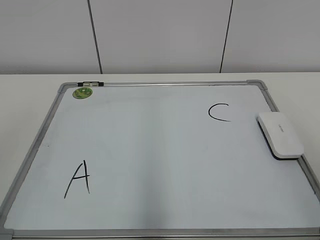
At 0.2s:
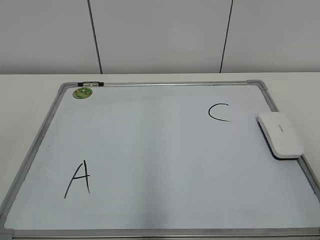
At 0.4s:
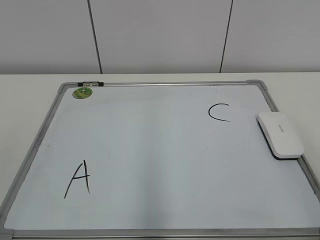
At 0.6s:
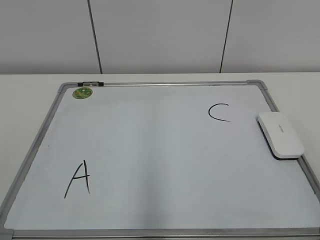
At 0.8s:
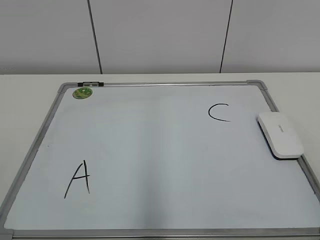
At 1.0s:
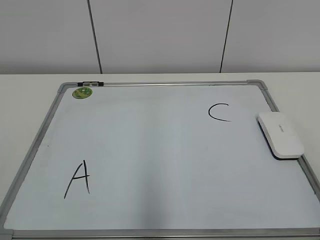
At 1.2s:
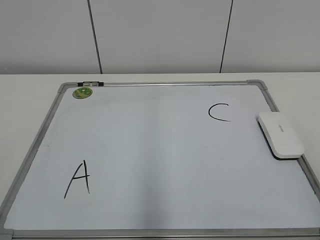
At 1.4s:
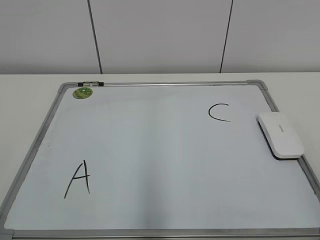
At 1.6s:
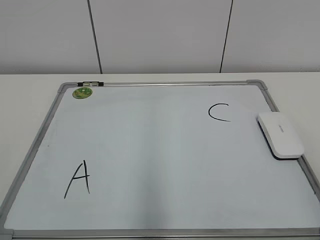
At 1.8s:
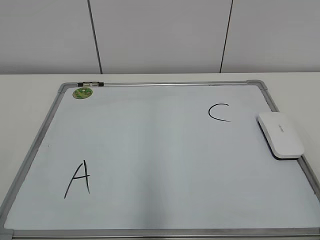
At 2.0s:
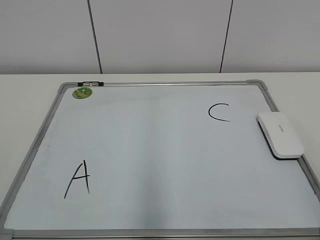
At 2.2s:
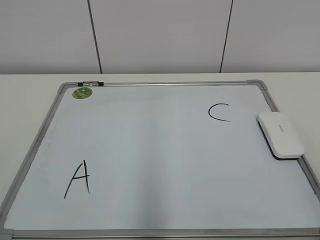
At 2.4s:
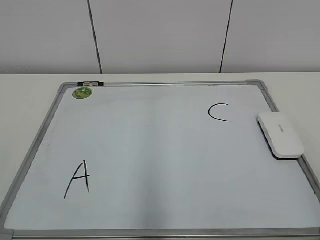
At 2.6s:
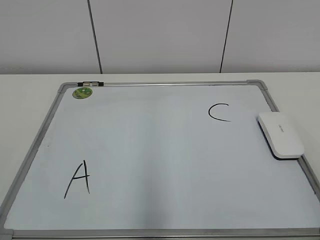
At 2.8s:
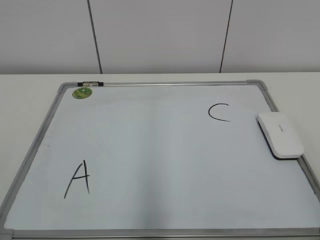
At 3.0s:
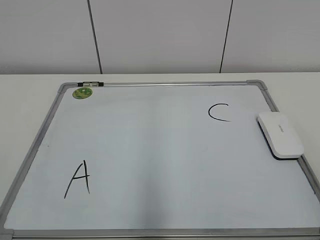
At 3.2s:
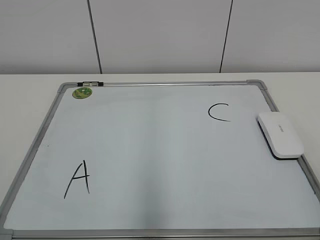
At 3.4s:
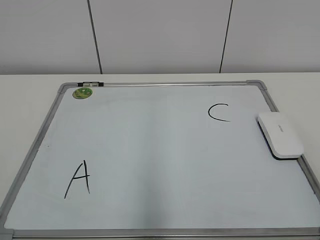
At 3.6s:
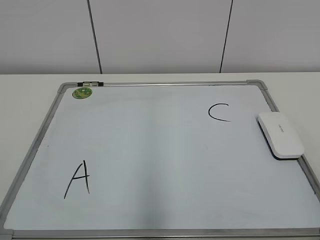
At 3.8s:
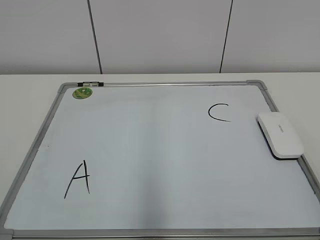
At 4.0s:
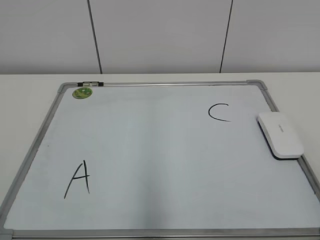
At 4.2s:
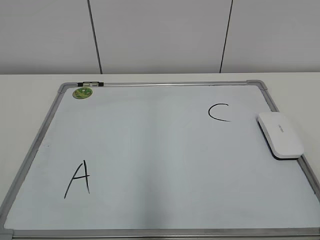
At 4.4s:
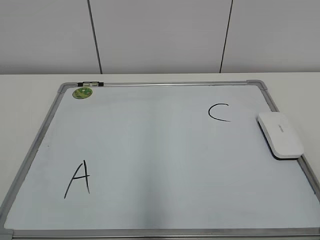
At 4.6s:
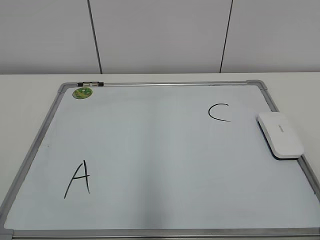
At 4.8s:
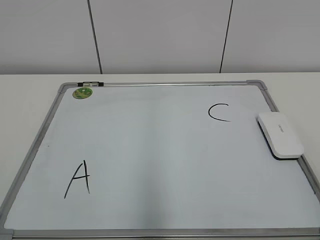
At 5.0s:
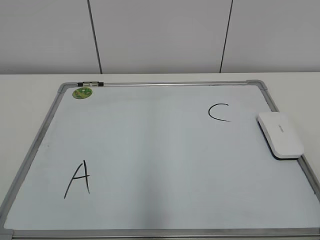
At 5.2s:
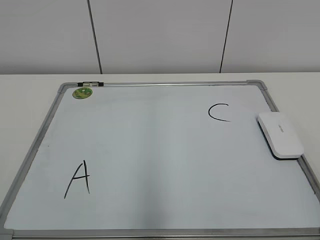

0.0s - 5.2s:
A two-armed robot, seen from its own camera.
Task of the whole recording: pick up the eraser on the blackboard and erase the letter "B".
3.4s - 5.2s: Neither gripper changes place.

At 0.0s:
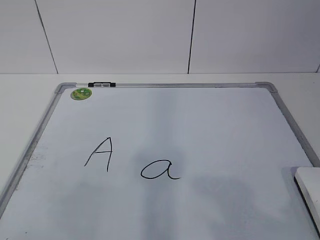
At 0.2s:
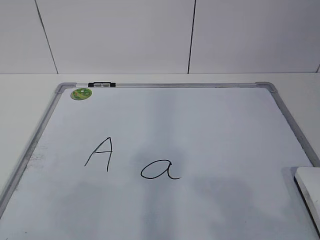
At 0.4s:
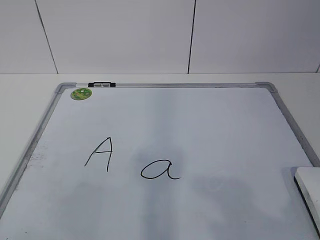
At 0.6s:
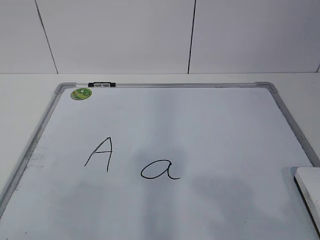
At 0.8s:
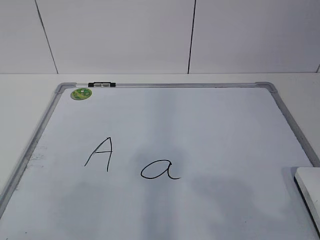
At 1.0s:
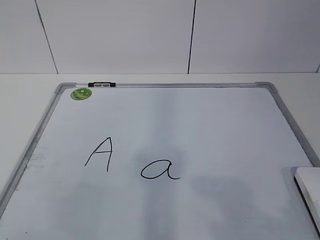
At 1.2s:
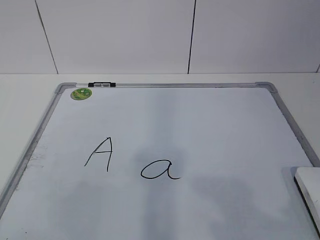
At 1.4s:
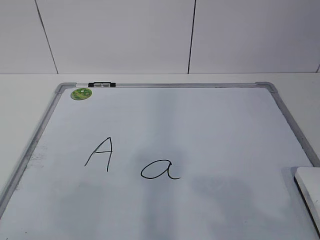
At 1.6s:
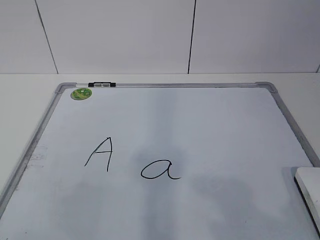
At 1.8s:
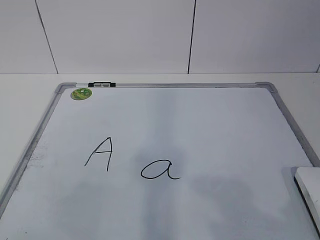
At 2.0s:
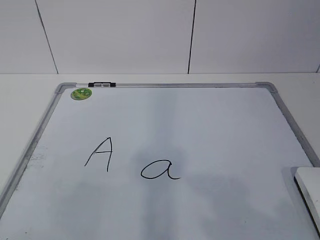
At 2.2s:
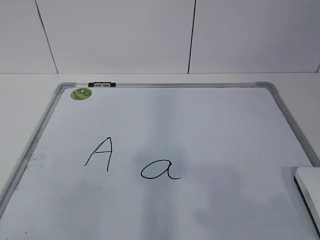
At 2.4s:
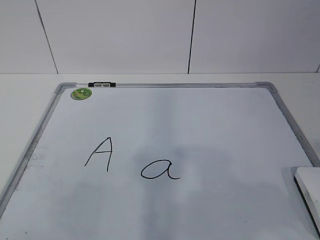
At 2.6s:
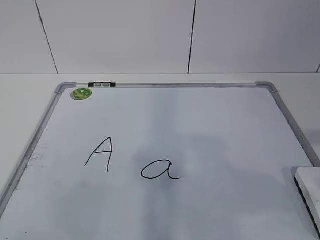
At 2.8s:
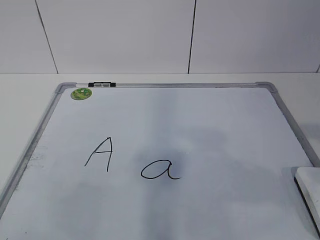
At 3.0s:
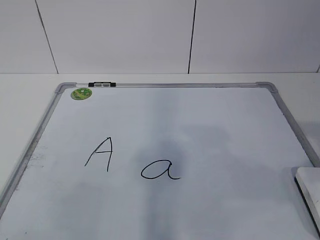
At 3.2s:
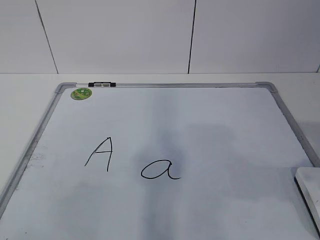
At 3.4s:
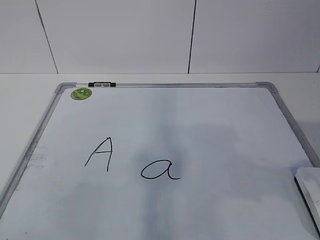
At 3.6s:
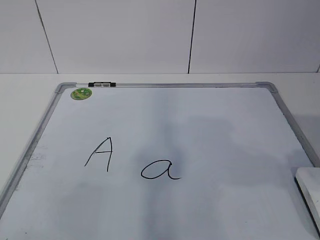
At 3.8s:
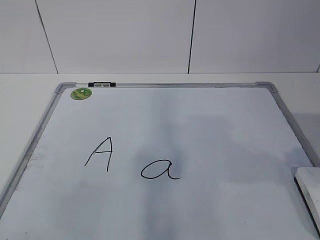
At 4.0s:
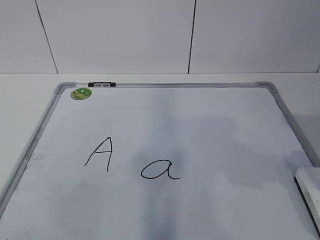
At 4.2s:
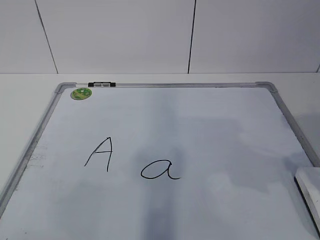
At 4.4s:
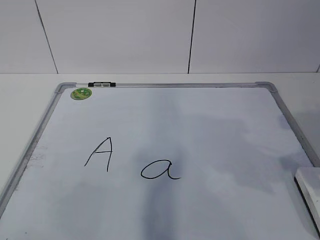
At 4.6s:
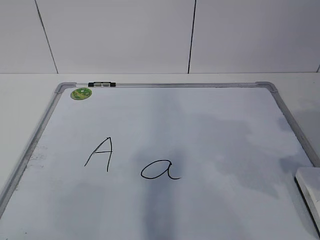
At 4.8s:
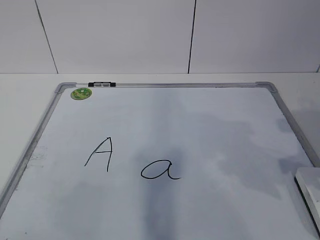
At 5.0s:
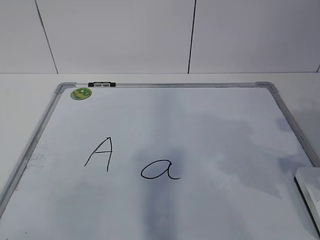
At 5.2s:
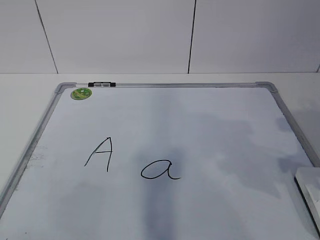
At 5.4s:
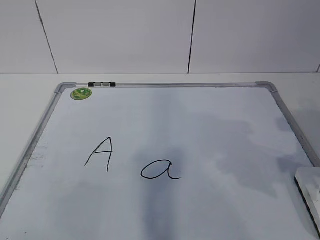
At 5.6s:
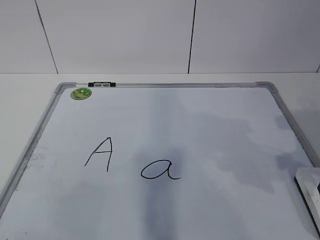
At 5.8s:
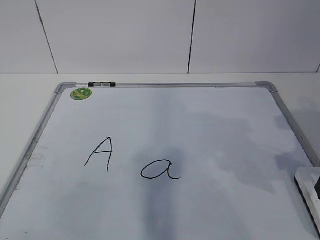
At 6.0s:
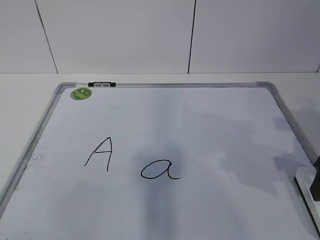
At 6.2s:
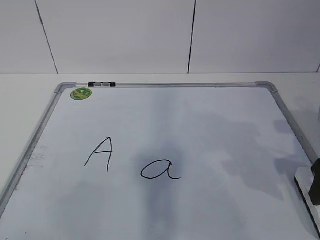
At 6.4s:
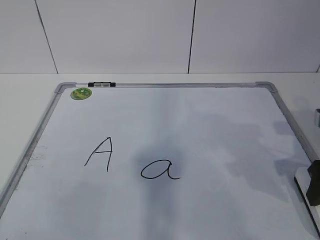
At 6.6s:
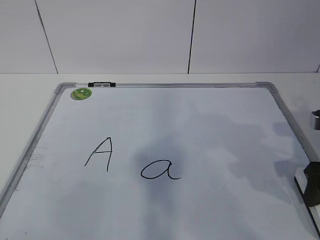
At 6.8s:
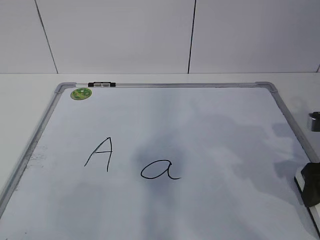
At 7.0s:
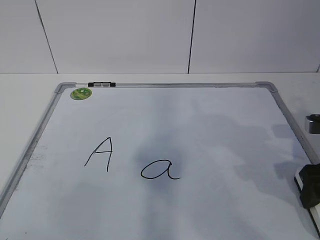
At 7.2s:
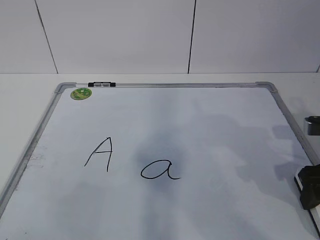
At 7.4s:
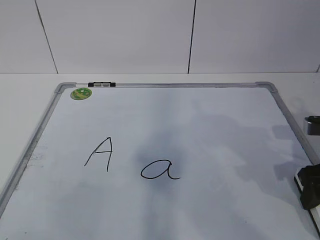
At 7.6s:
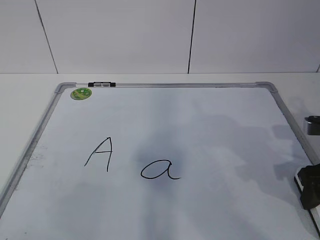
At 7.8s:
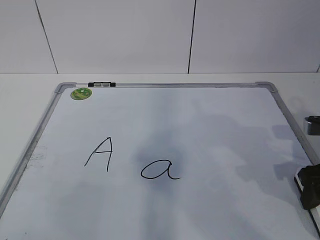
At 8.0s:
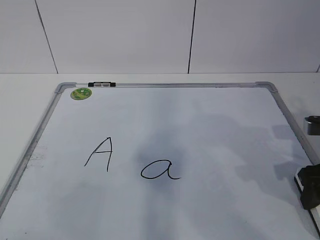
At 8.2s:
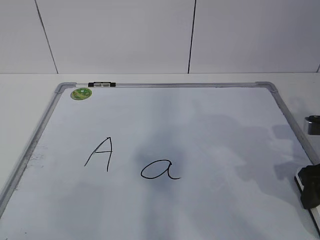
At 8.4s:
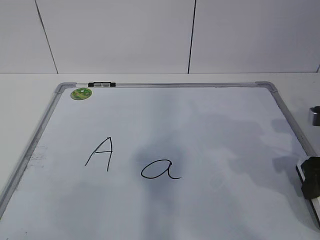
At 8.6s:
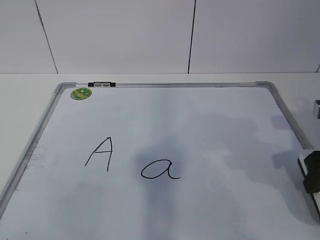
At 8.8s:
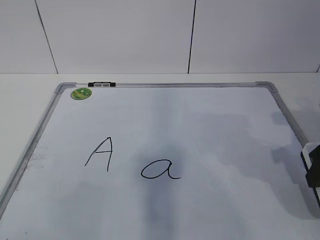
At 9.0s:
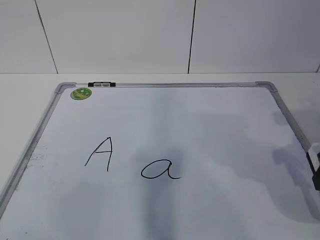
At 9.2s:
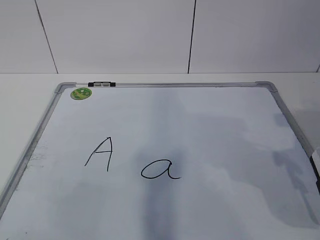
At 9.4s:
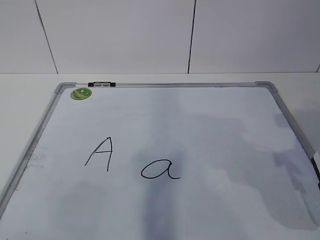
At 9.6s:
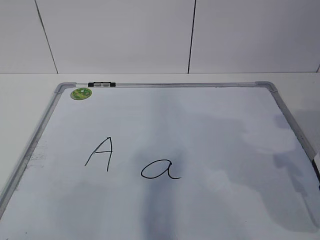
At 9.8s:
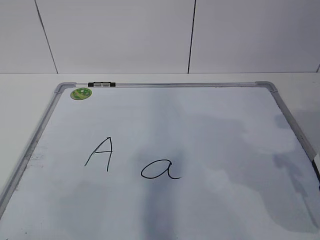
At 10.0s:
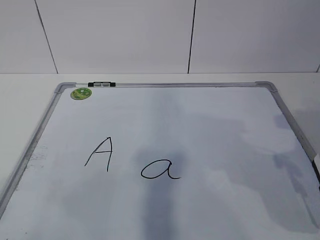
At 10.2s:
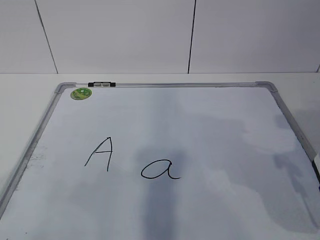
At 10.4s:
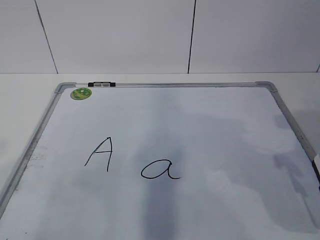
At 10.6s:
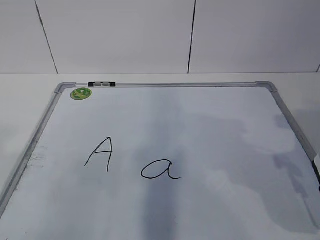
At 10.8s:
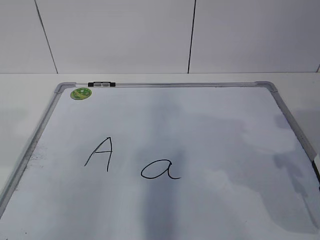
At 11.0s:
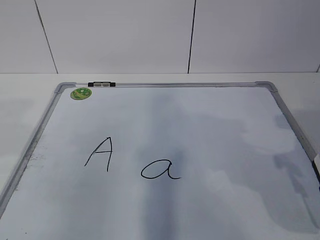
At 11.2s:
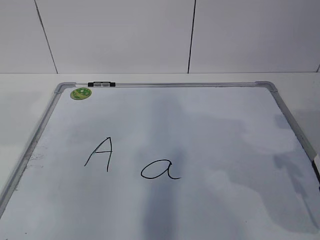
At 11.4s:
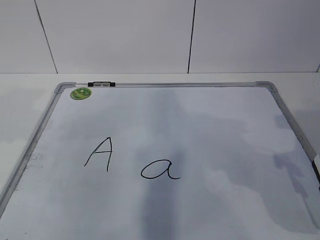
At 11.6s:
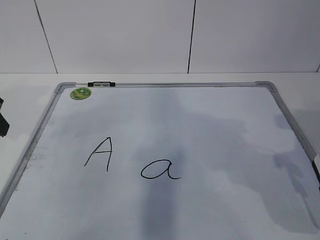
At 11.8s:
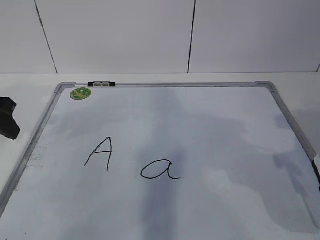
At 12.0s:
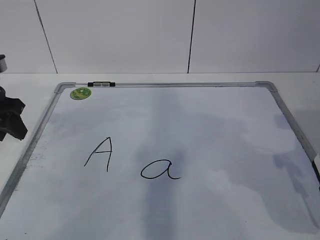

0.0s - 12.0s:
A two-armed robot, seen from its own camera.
Task of the whole recording: pick up the eraser on the blackboard and erase the letter "a".
Step, 7.0s - 11.8s: Hold the drawing board steady with your left hand.
6.0s - 7.6s: There are only small adjustments of the grippers.
7.6s - 9.0s: The right gripper goes approximately 5 cm upward.
10.4s - 12.0s: The left gripper heads forward, covering some 30 cm.

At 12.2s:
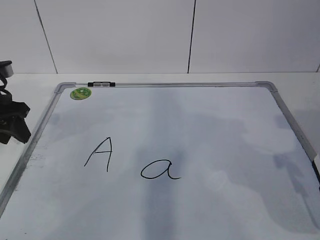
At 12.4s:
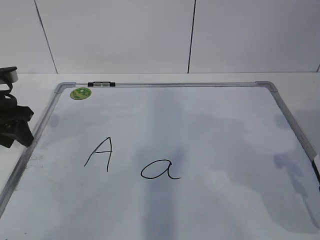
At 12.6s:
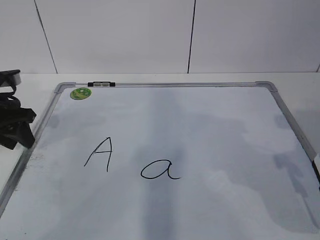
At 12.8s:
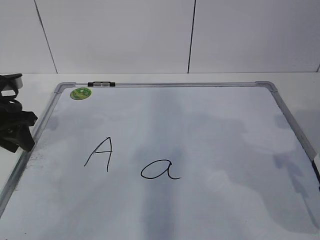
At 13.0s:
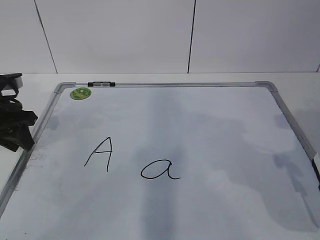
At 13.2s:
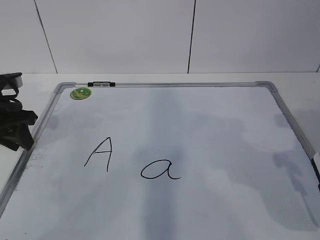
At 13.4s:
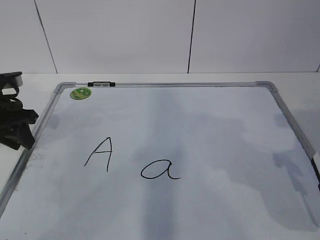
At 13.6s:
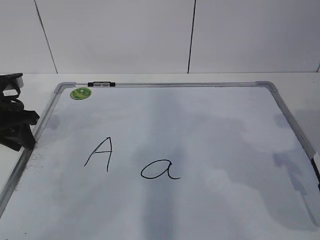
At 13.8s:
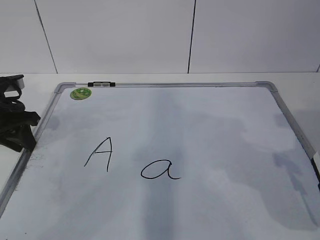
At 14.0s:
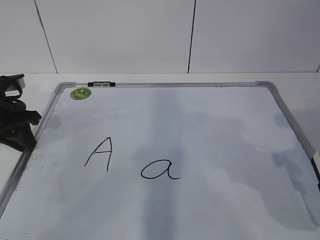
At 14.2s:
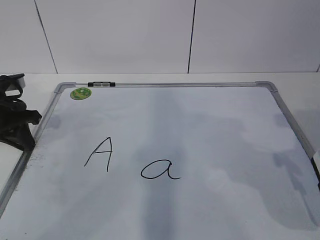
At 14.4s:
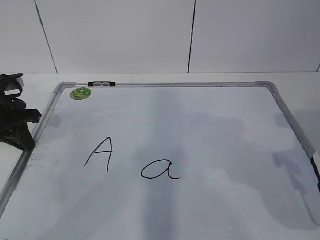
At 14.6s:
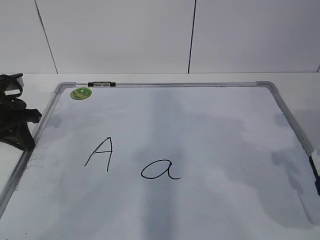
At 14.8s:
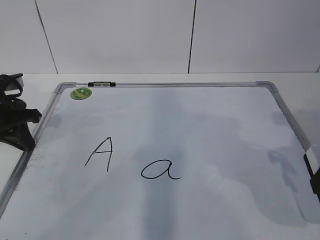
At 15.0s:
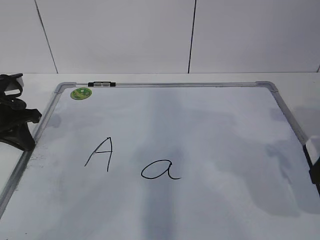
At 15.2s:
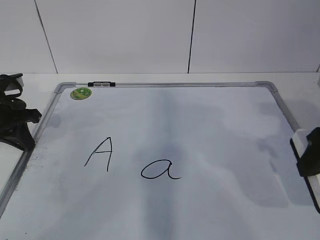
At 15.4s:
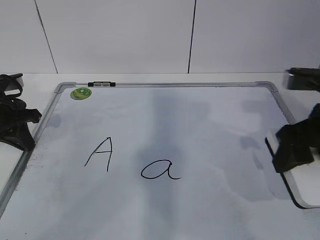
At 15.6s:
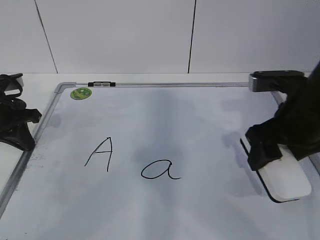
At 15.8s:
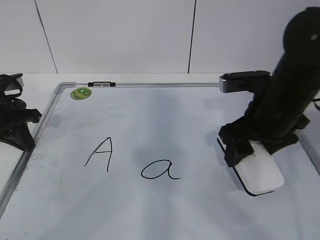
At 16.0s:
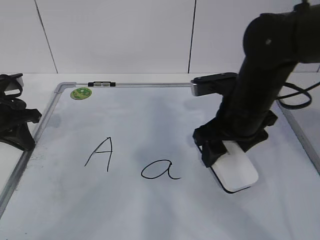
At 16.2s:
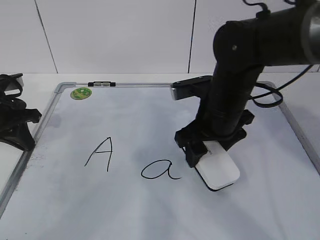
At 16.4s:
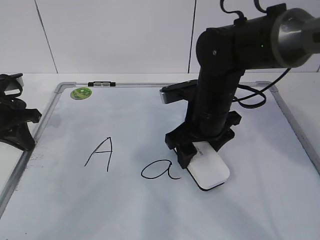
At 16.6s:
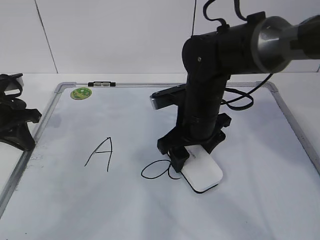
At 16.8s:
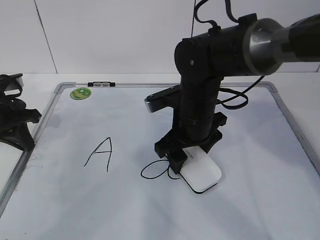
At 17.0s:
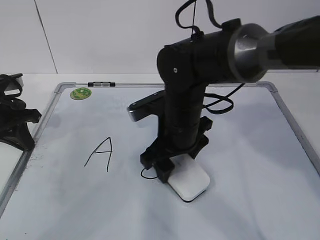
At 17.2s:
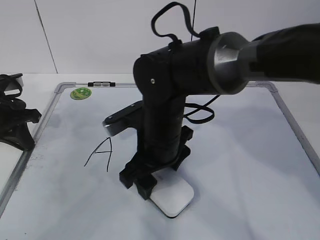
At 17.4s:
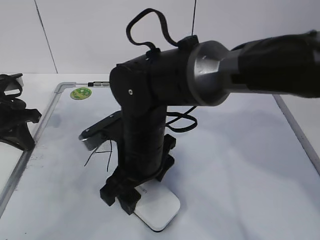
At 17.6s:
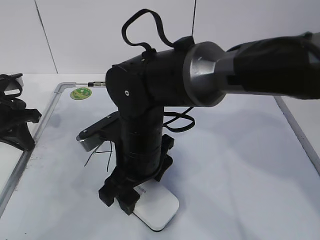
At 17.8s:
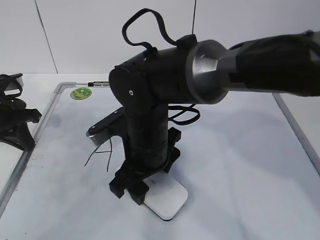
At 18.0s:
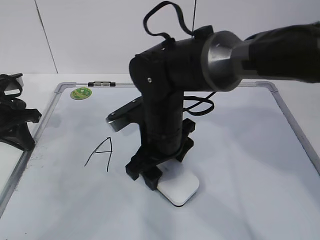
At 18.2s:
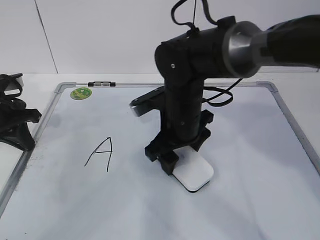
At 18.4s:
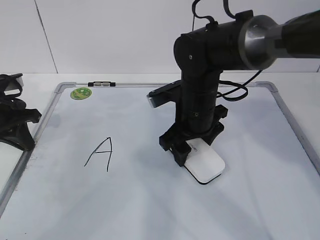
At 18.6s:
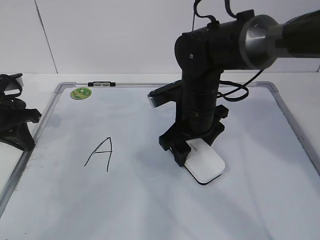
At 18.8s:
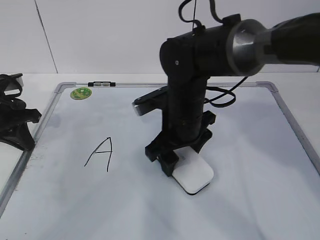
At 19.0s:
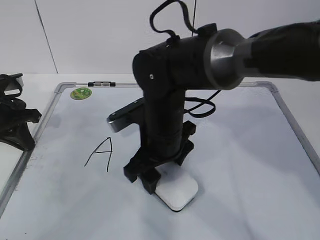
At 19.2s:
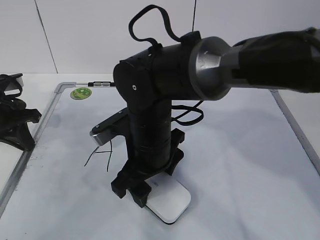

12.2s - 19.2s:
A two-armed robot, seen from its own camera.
Task of the whole recording: pick up the eraser on the blackboard and erase the letter "a".
Step, 12.2s - 15.8s: Erase the letter a with your right hand.
12.2s - 13.6s: The grippers make only small movements.
13.6s - 15.0s: The left gripper closes.
15.0s - 16.4s: The right gripper heads to the left and forward, covering approximately 25 cm.
16.4s - 17.8s: The right gripper is displaced to the left and backward by roughly 10 cm.
17.8s - 19.2s: The right gripper reaches about 10 cm to the right, then returns.
